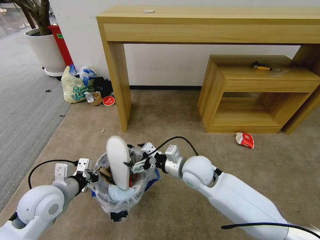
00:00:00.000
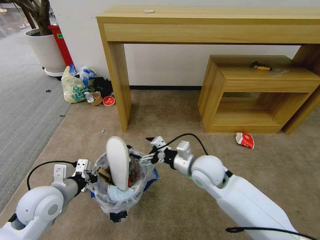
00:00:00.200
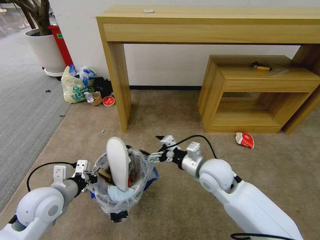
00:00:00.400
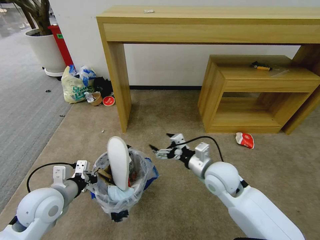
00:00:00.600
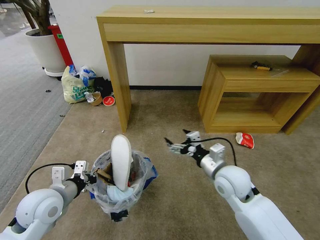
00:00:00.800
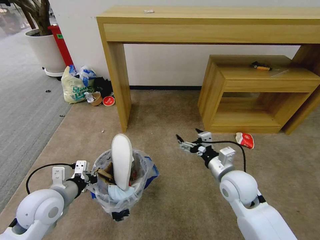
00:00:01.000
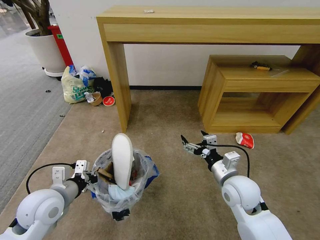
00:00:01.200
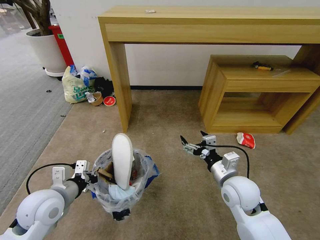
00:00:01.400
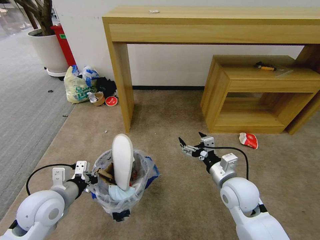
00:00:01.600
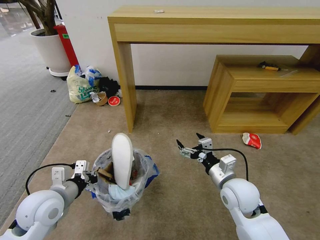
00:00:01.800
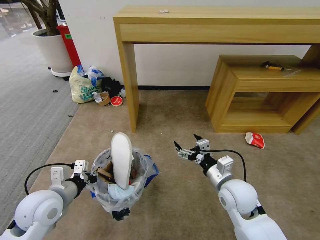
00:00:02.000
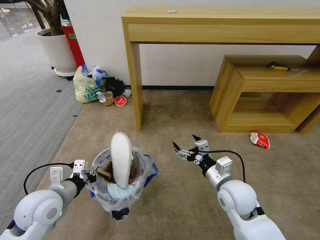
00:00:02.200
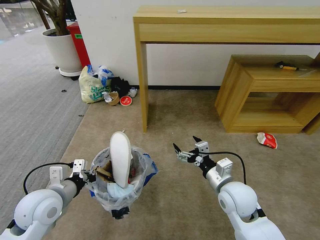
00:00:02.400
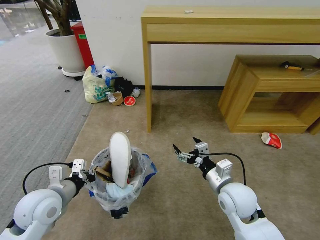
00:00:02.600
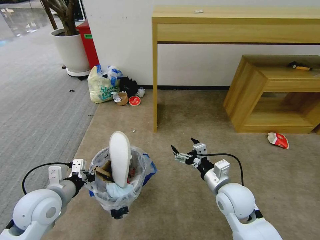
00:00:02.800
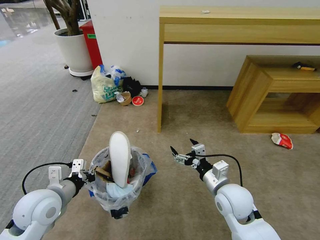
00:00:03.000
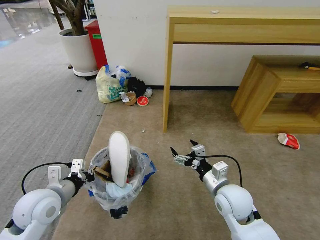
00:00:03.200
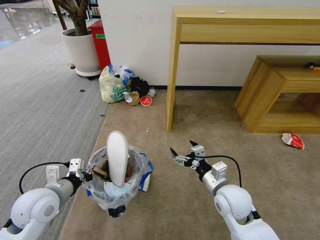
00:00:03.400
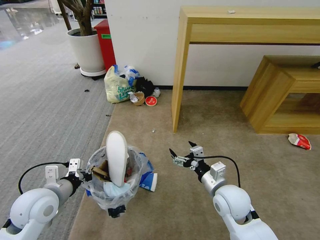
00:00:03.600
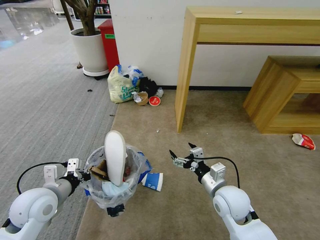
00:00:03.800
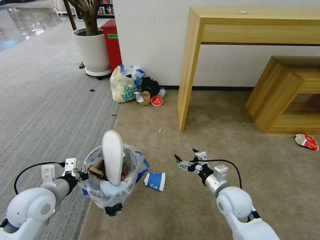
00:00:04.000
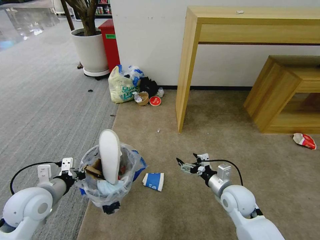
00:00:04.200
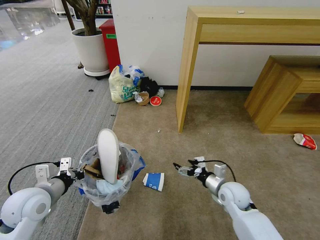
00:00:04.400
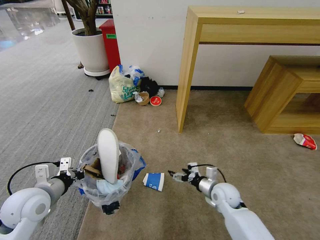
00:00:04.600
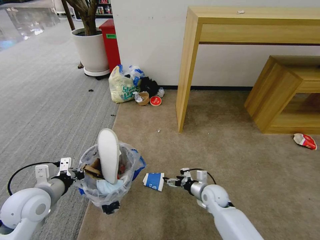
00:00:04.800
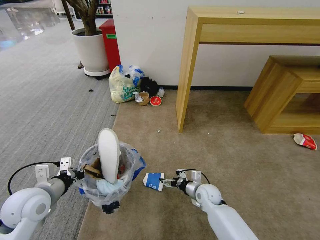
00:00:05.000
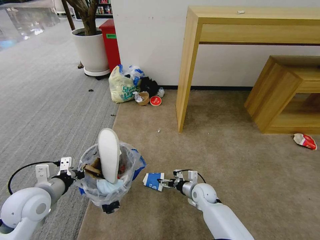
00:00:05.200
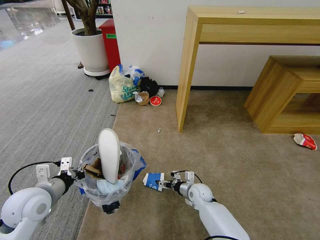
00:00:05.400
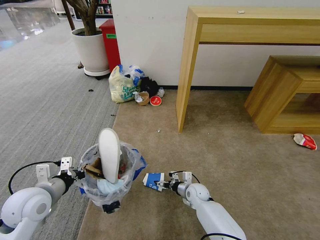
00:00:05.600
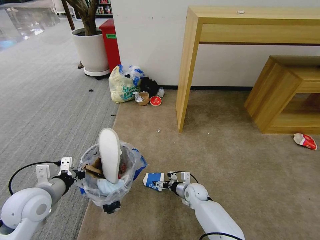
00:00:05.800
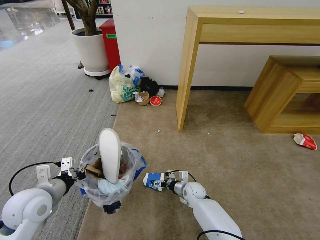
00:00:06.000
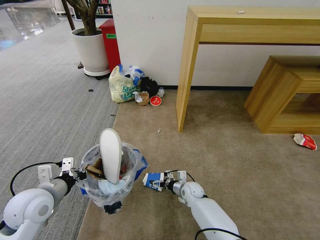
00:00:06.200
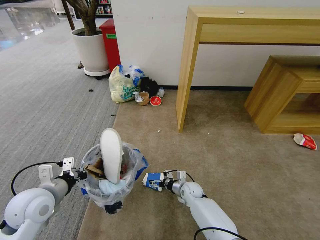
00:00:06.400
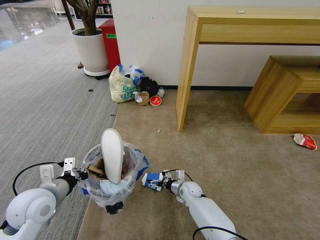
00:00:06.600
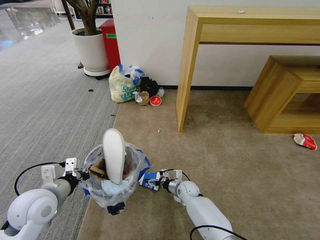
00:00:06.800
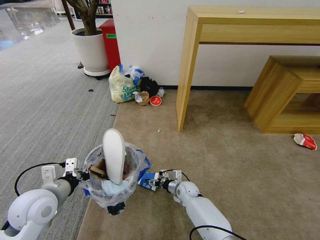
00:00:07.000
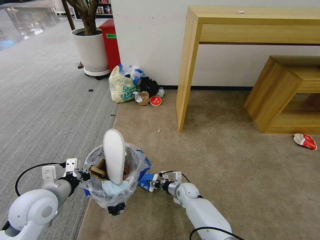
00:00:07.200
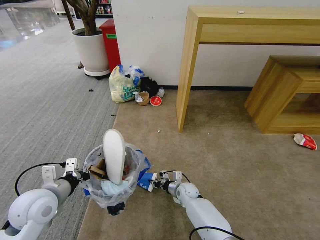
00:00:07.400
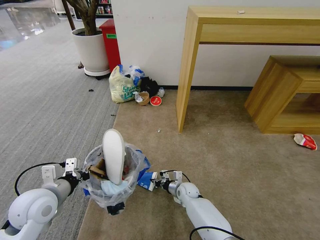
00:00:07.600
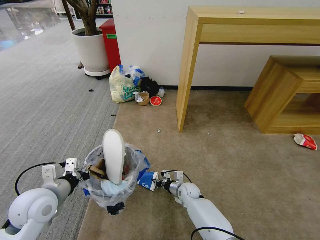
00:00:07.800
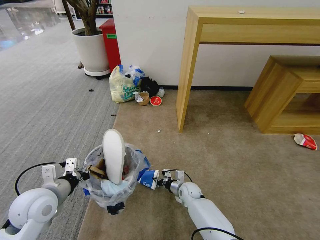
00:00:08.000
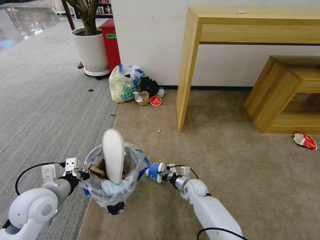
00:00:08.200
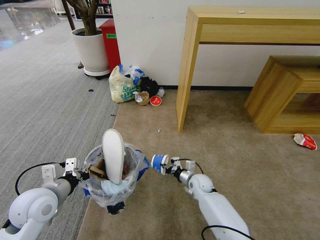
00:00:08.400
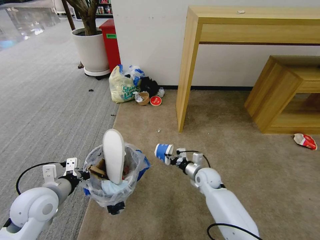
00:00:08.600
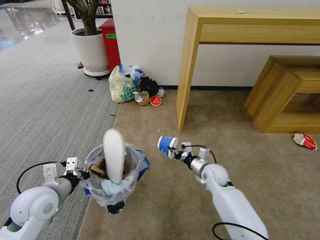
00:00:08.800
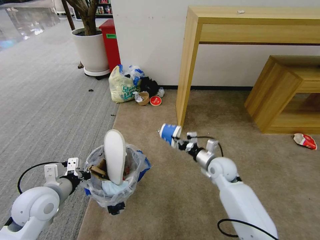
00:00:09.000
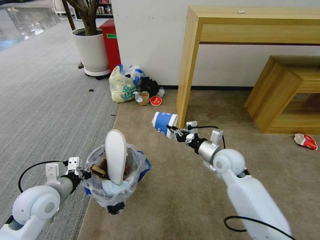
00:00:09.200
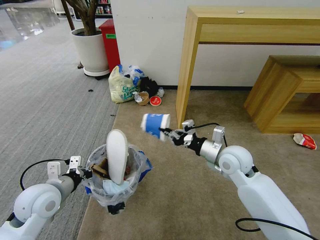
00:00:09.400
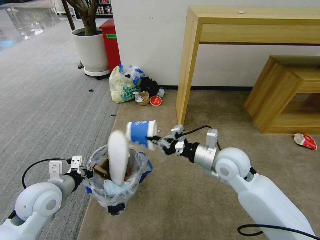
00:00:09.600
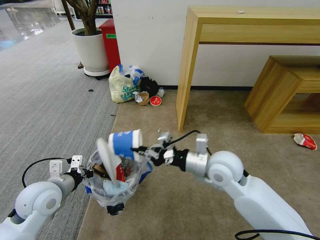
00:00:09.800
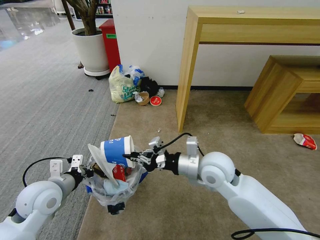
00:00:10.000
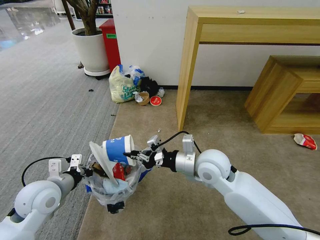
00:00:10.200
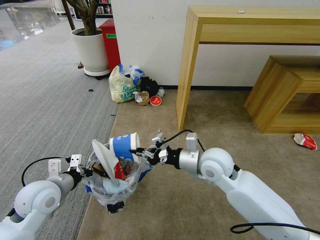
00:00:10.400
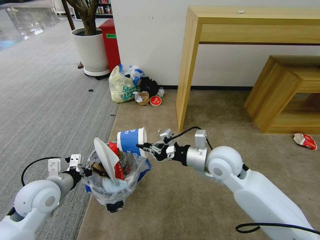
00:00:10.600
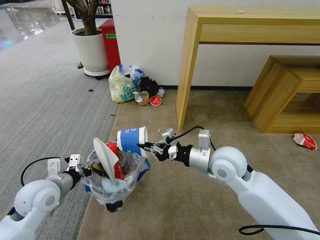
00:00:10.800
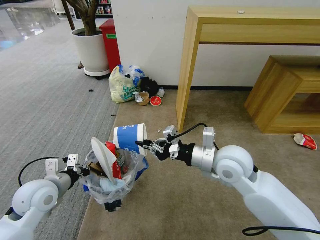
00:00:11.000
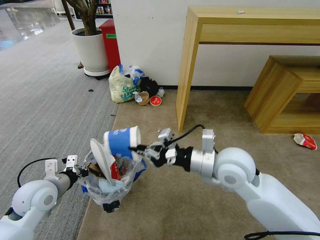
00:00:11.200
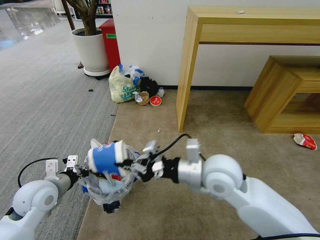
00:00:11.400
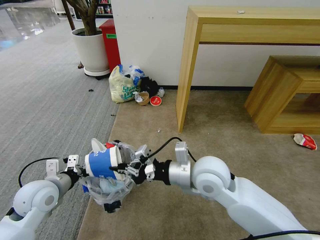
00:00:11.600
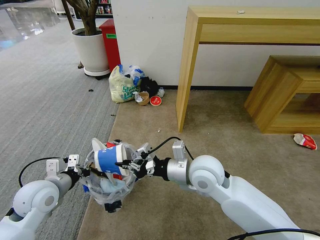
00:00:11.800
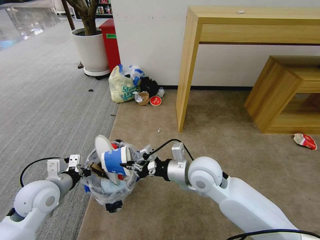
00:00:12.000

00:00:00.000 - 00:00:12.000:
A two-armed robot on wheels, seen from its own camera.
Task of the whole recording: Pick up the trash bin and place the garbage on the floor into it.
00:00:00.000 - 00:00:01.600: The right gripper is displaced to the right and backward by approximately 15 cm.
00:00:03.000 - 00:00:04.400: The right gripper is displaced downward and to the right by approximately 10 cm.
00:00:04.400 - 00:00:06.000: The right gripper heads downward, to the left and forward, covering some 20 cm.
00:00:06.000 - 00:00:07.600: The right gripper closes.
00:00:07.600 - 00:00:09.000: The right gripper heads upward and to the right, covering about 25 cm.
00:00:09.000 - 00:00:10.400: The right gripper goes some 15 cm upward, to the left and backward.

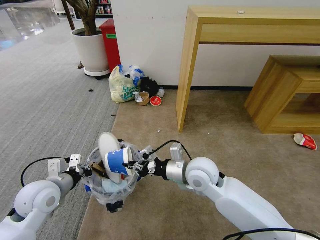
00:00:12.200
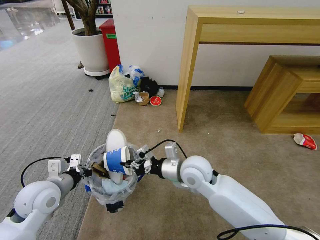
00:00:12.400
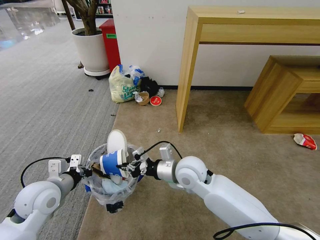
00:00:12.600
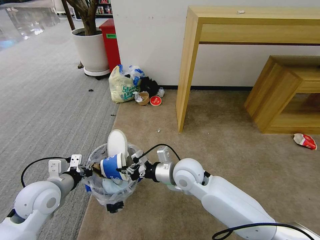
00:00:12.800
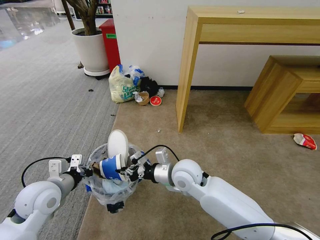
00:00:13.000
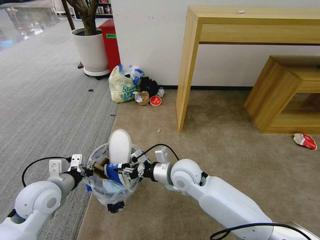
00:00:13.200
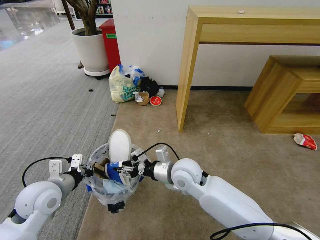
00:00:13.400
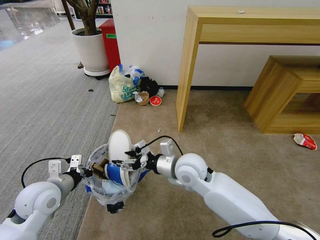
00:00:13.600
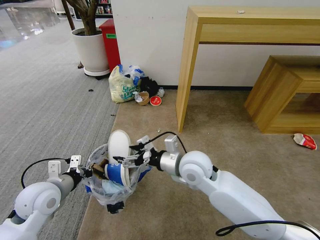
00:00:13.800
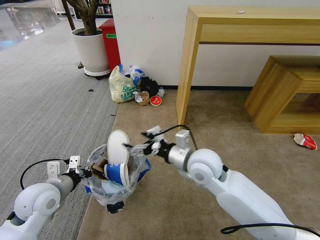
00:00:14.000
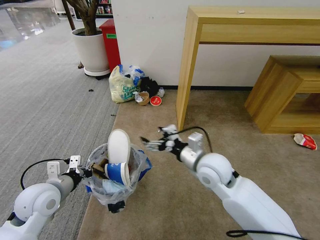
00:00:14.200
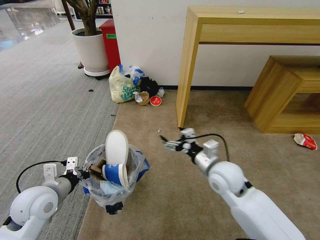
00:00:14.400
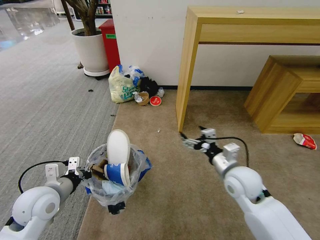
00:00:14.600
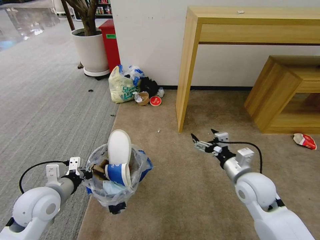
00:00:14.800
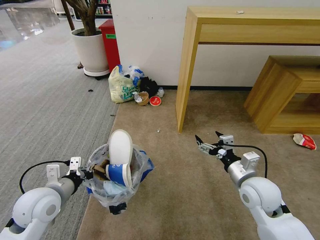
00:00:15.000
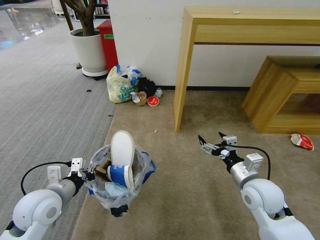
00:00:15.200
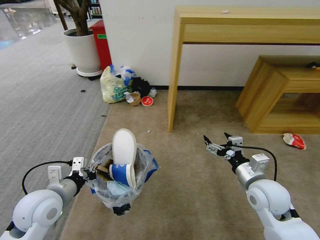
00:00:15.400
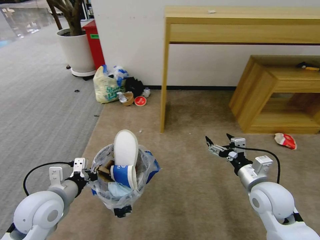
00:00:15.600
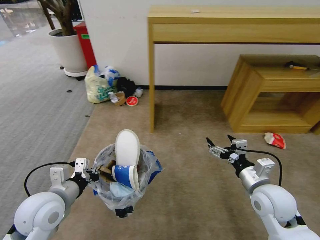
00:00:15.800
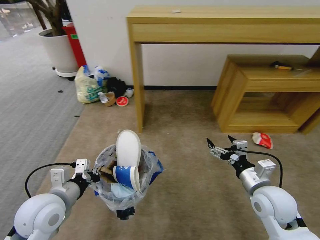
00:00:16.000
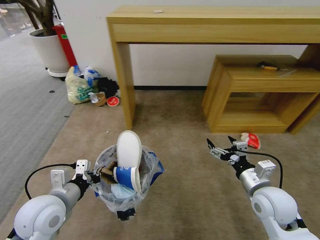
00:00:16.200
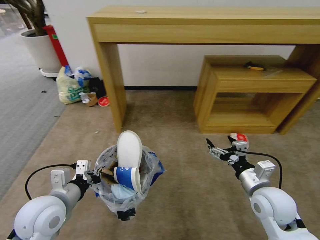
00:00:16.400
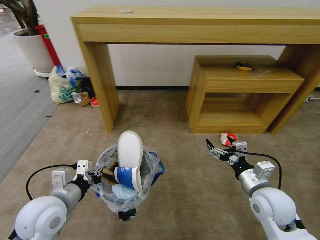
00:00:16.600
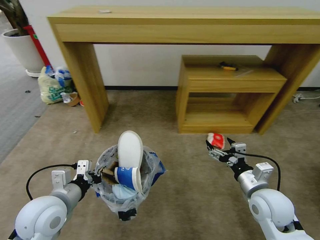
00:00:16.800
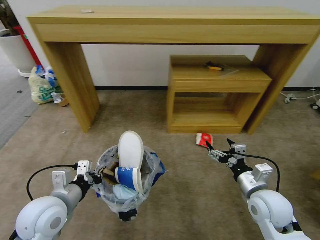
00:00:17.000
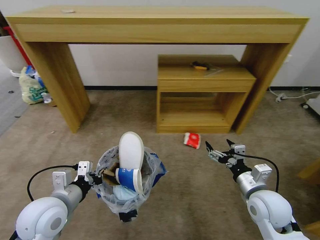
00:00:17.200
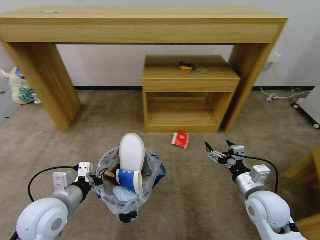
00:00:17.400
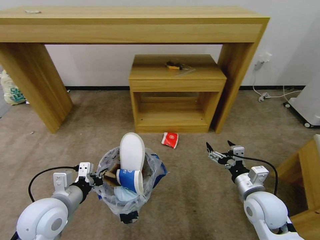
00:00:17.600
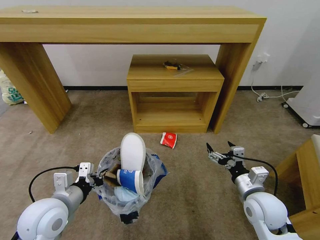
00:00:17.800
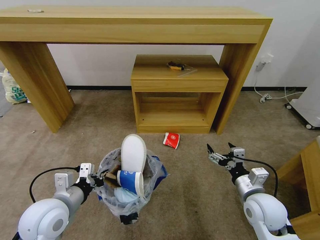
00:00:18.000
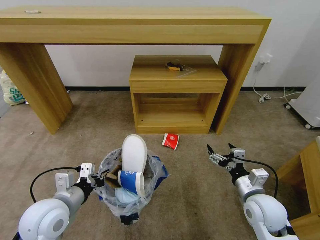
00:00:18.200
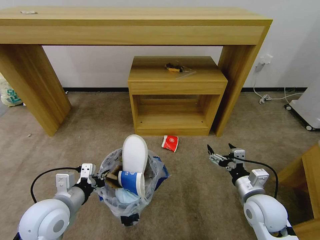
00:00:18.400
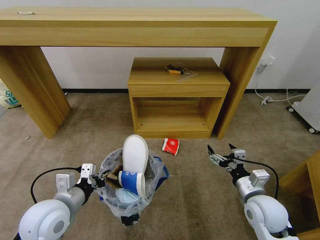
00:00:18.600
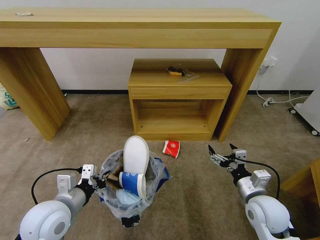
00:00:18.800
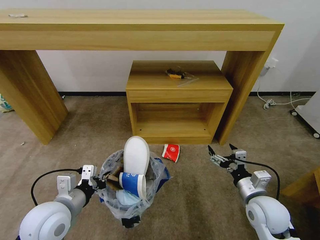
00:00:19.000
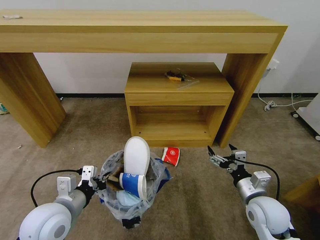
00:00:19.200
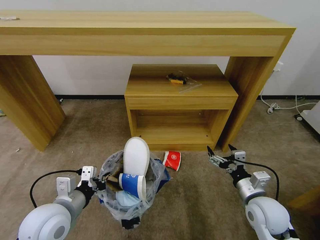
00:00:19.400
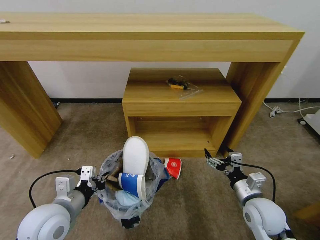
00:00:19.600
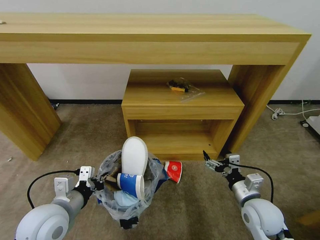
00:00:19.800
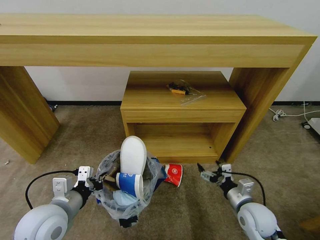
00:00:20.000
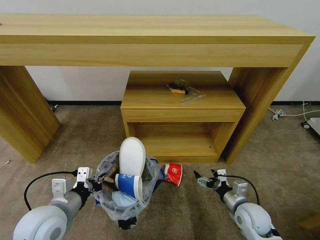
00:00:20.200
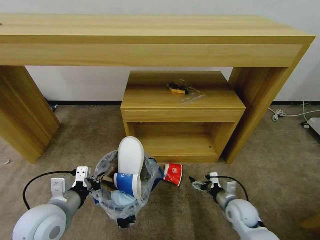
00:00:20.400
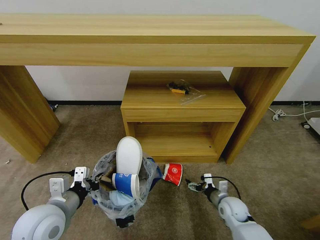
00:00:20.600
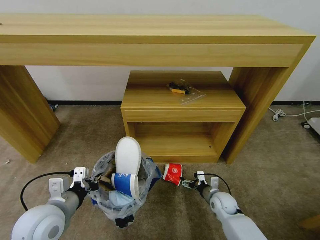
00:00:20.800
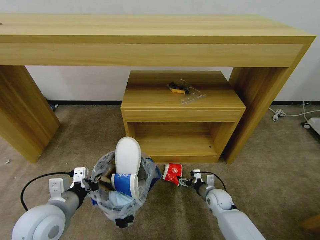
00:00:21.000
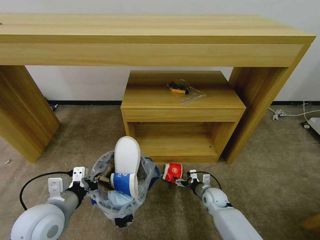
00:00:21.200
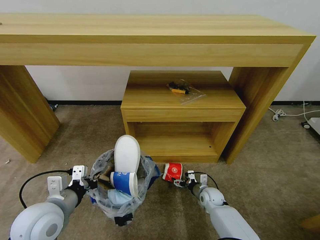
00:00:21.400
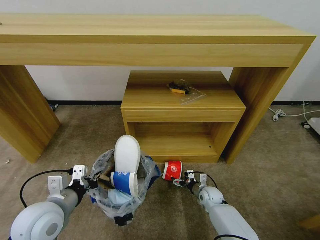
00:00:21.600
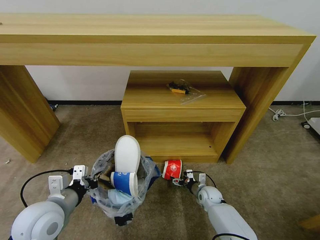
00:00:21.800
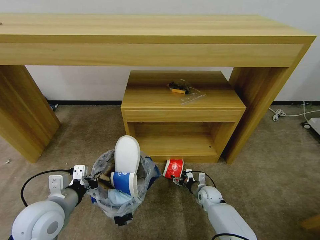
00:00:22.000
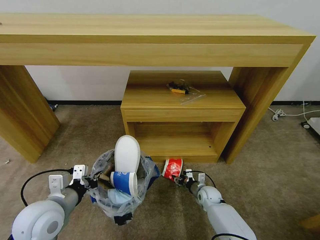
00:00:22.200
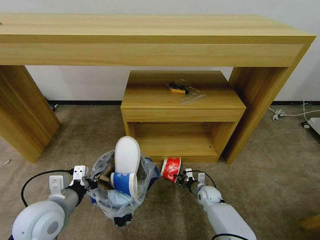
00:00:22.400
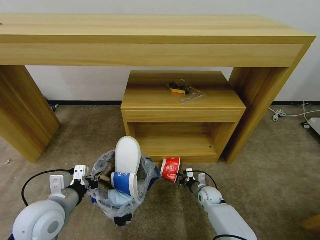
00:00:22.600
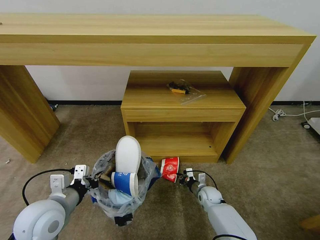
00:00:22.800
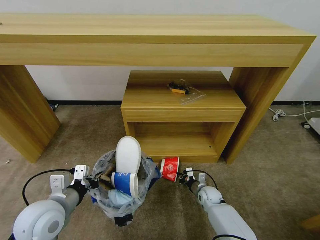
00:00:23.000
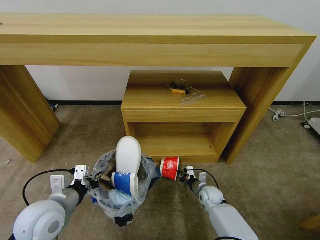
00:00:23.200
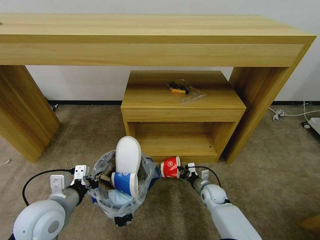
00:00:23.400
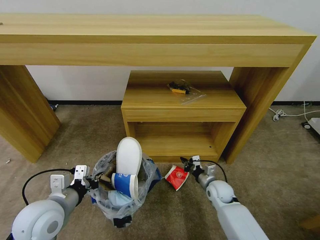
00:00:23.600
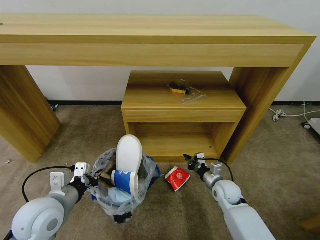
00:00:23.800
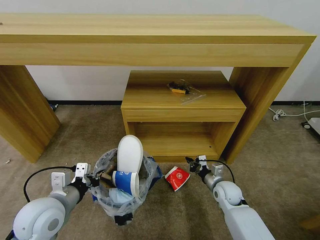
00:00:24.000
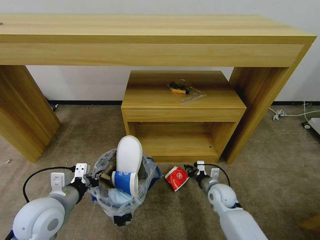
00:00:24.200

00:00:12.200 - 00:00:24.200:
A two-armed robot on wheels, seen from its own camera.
Task of the whole recording: Pick up the trash bin and place the garbage on the floor into it.
00:00:12.200 - 00:00:13.800: The right gripper opens up.
00:00:13.800 - 00:00:15.200: The right gripper heads to the right, covering about 20 cm.
00:00:19.800 - 00:00:21.200: The right gripper heads downward and forward, covering about 20 cm.
00:00:21.200 - 00:00:22.600: The right gripper closes its fingers.
00:00:22.600 - 00:00:24.200: The right gripper shifts approximately 10 cm upward.
